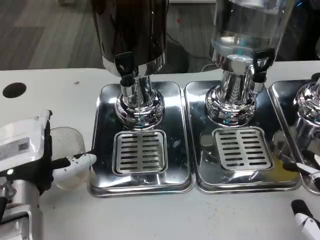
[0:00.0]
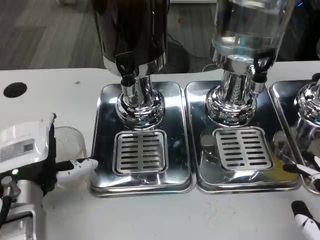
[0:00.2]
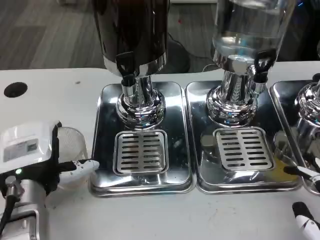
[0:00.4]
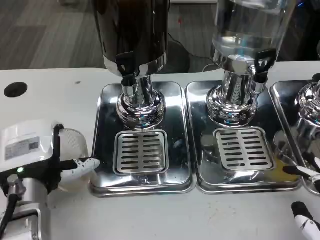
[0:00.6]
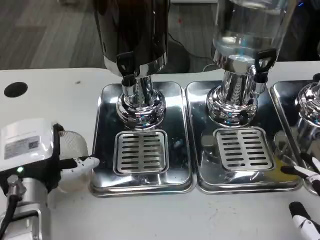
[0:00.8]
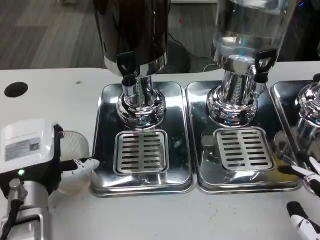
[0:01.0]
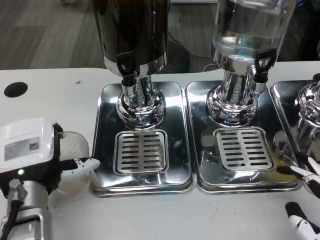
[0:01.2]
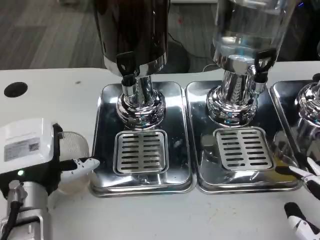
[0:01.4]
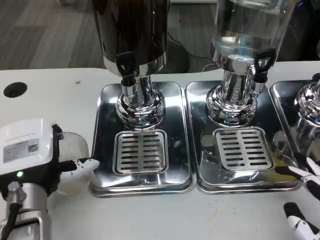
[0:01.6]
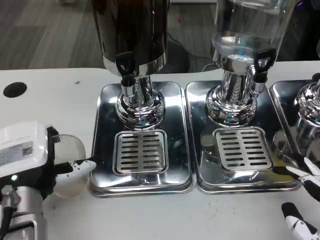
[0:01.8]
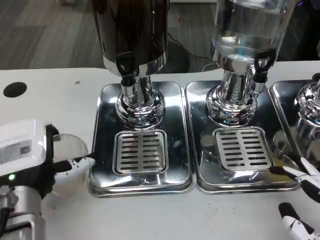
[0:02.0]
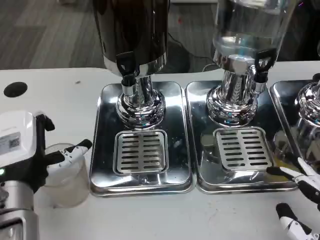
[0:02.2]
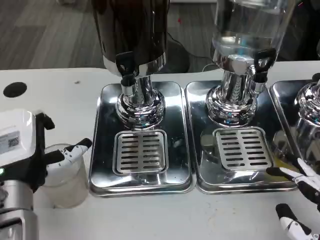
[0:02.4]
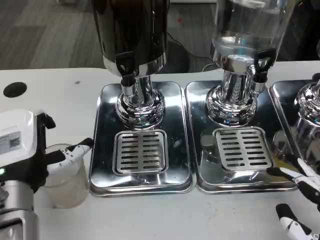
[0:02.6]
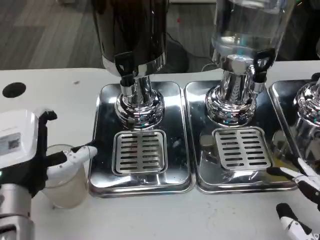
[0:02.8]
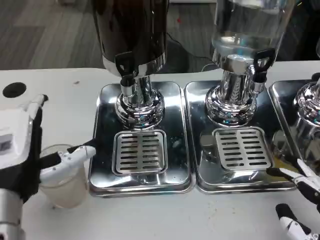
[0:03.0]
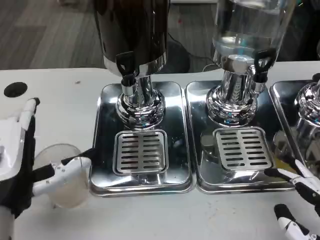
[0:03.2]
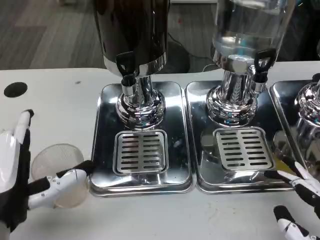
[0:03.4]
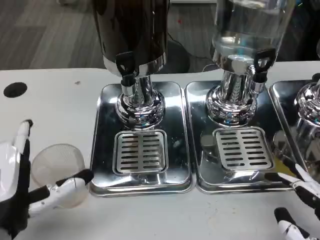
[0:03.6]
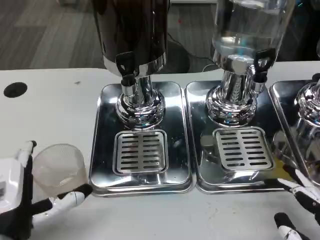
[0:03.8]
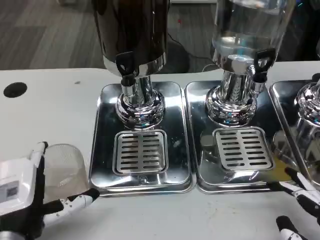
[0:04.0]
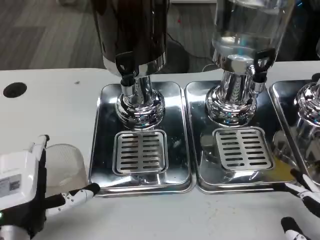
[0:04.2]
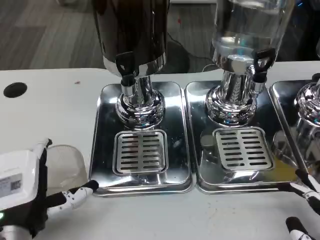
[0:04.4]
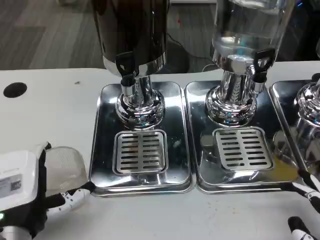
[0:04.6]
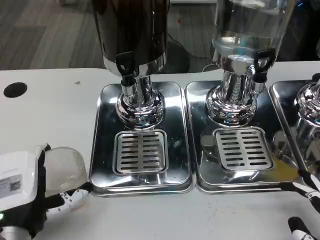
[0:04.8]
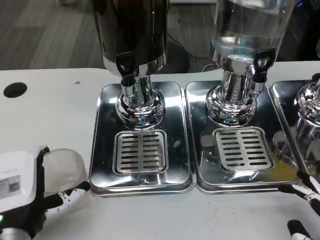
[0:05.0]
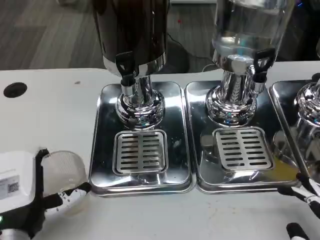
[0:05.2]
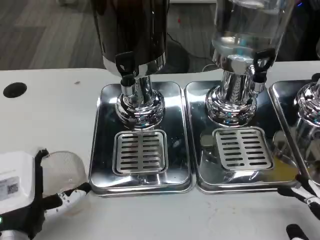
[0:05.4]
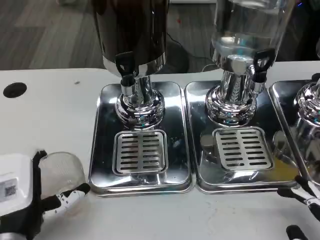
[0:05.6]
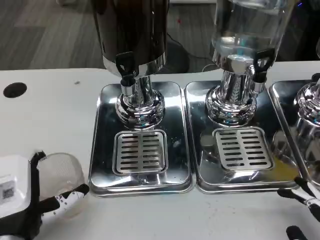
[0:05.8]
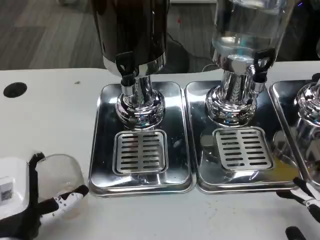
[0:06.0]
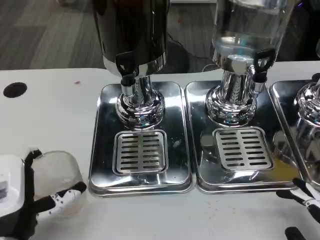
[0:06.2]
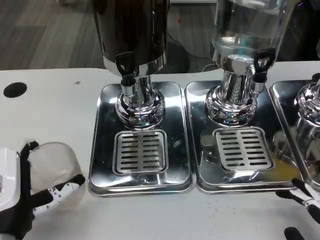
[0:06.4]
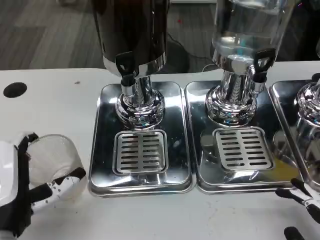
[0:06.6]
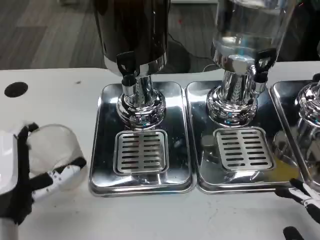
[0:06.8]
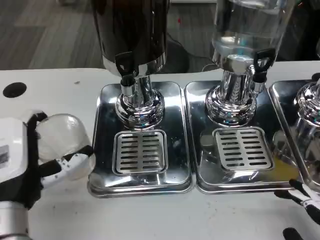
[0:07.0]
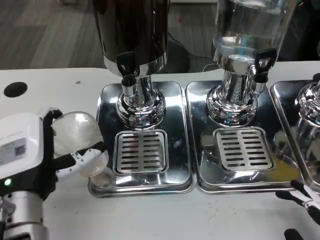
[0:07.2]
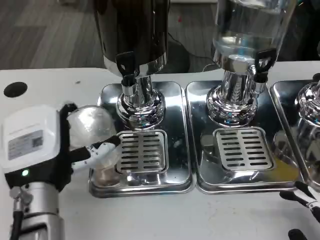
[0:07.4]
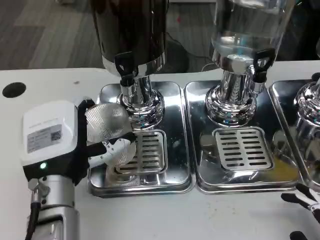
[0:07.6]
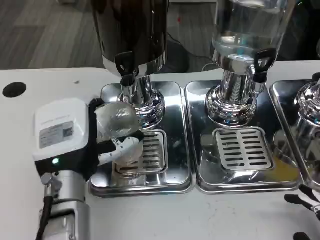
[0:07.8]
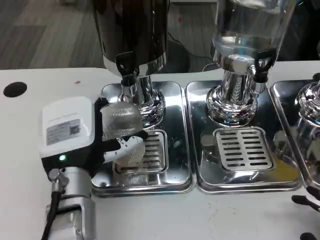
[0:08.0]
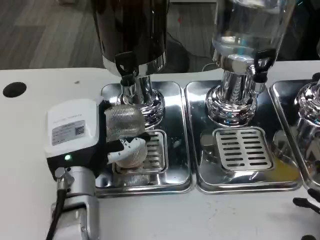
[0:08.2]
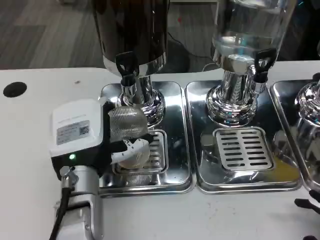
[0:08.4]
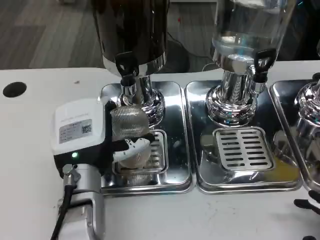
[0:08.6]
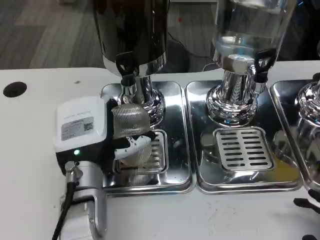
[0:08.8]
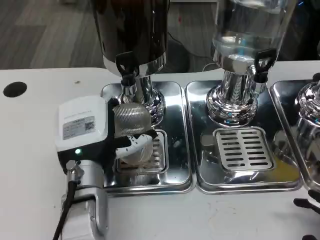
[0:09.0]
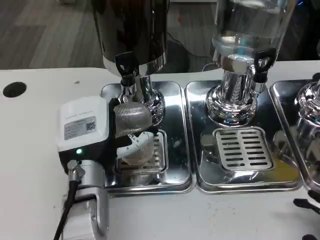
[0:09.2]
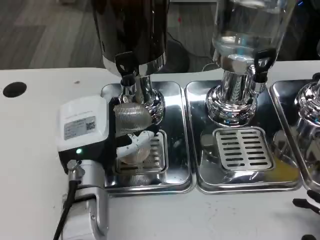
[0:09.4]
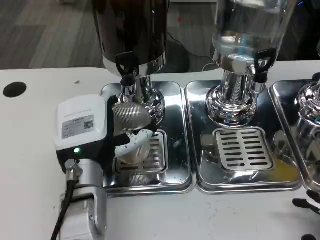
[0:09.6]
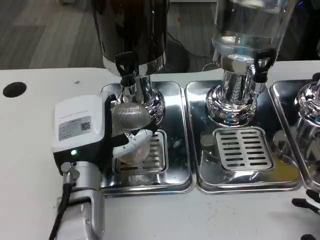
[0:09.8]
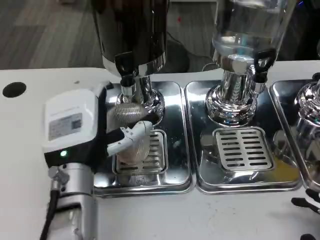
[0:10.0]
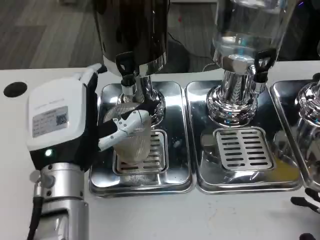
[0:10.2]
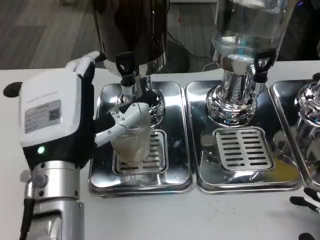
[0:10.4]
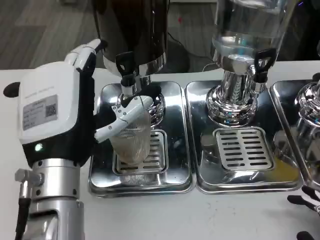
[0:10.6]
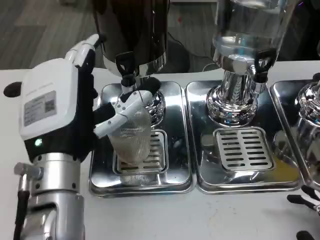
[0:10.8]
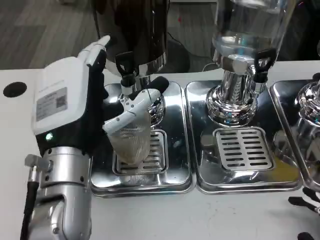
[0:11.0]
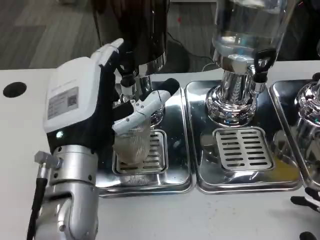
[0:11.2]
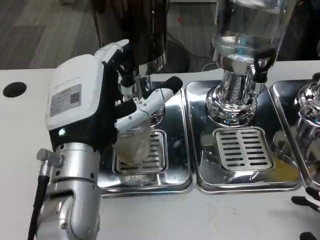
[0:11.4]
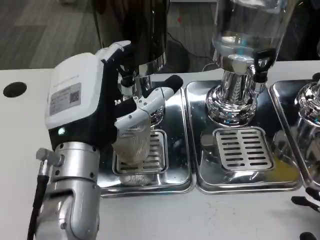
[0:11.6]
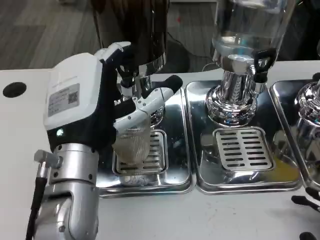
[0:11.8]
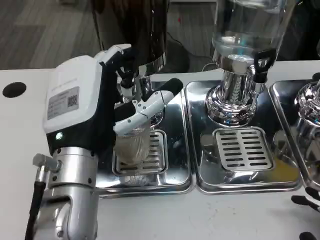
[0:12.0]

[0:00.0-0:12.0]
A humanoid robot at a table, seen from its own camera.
Task of the whole recording: Grasp the cup under the faucet to collect the drink, then remove the cup.
0:00.0 to 0:01.6: There are only small adjustments of the hands.
0:01.6 to 0:03.0: The left hand changes place by roughly 5 cm.
0:03.0 to 0:04.4: There are only small adjustments of the hands.
0:04.4 to 0:06.0: There are only small adjustments of the hands.
0:06.0 to 0:07.6: The left hand moves forward, roughly 5 cm.
0:09.0 to 0:10.4: The left hand travels upward by some 5 cm.
0:10.4 to 0:12.0: The hands make only small movements.

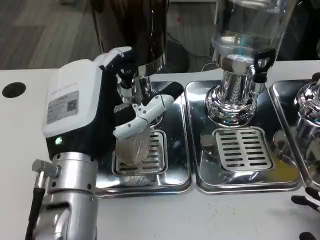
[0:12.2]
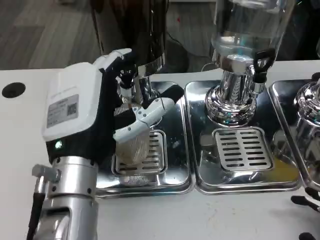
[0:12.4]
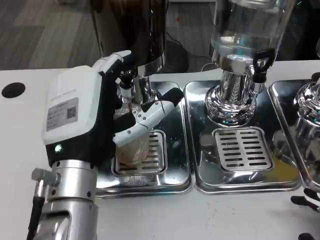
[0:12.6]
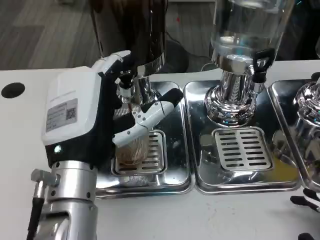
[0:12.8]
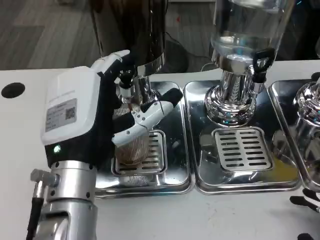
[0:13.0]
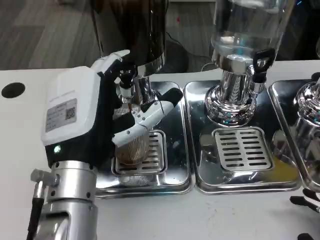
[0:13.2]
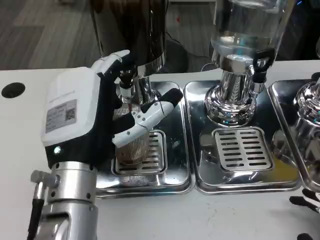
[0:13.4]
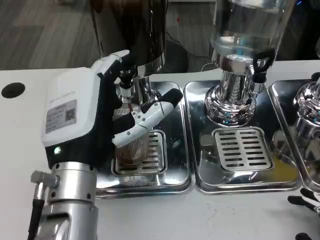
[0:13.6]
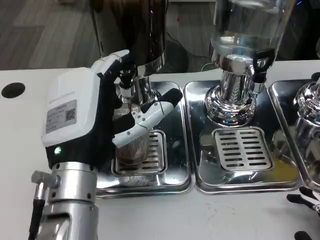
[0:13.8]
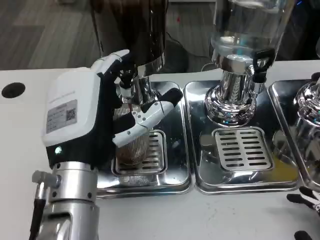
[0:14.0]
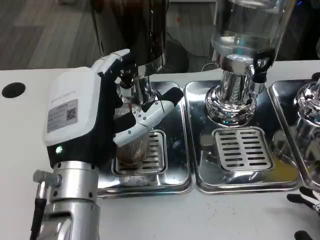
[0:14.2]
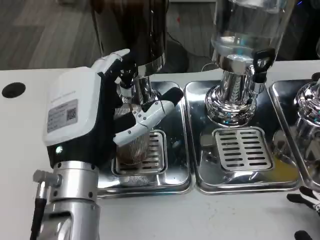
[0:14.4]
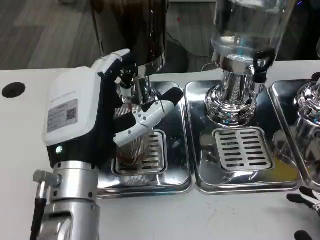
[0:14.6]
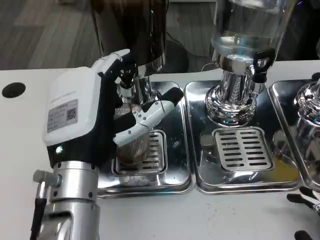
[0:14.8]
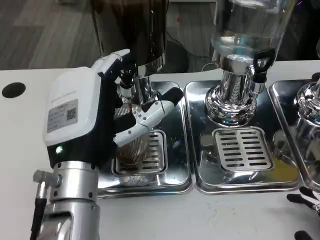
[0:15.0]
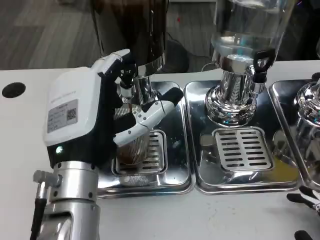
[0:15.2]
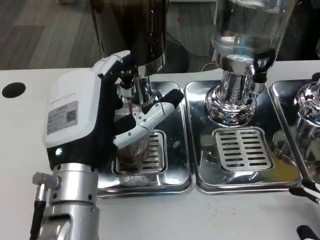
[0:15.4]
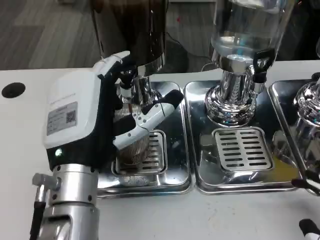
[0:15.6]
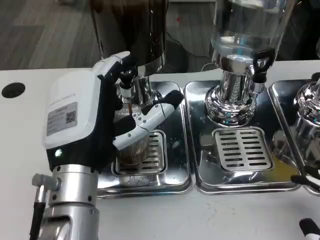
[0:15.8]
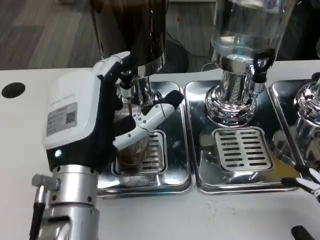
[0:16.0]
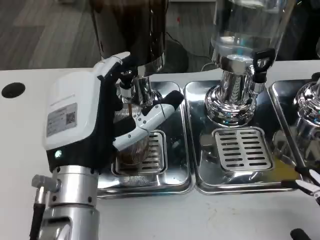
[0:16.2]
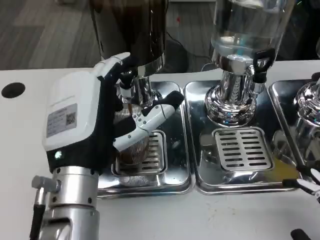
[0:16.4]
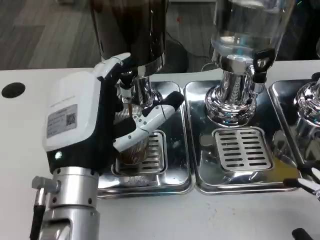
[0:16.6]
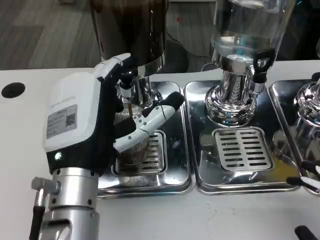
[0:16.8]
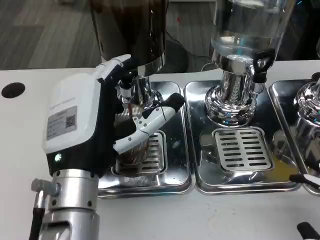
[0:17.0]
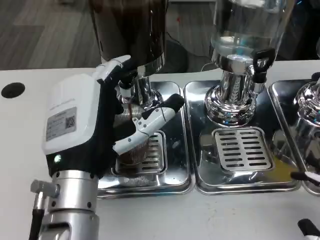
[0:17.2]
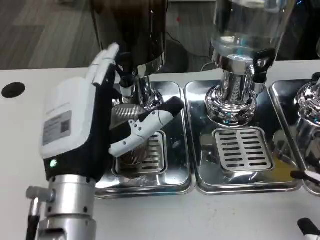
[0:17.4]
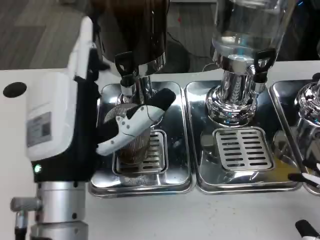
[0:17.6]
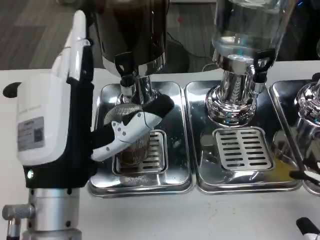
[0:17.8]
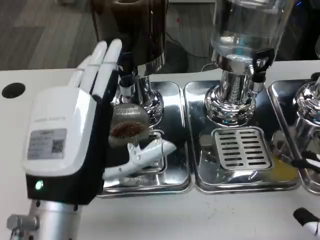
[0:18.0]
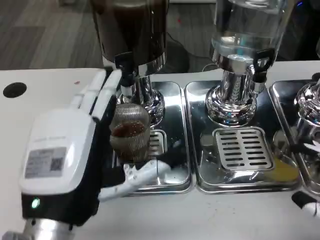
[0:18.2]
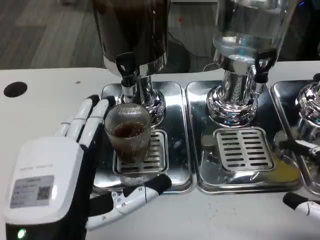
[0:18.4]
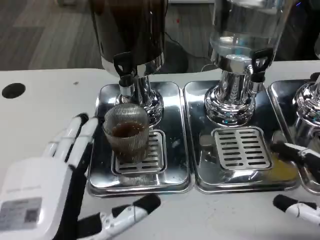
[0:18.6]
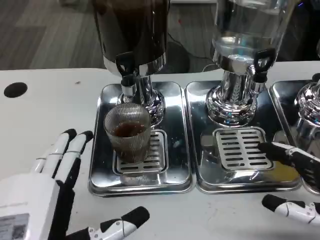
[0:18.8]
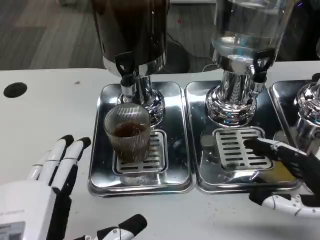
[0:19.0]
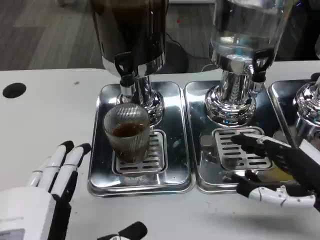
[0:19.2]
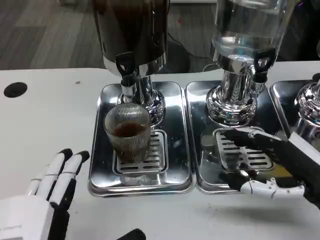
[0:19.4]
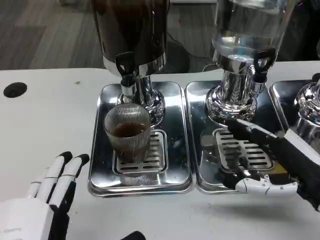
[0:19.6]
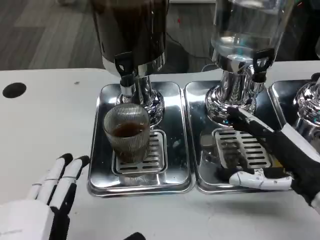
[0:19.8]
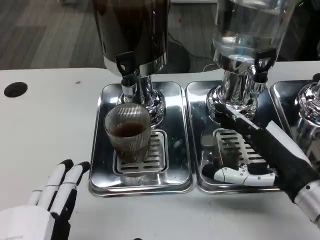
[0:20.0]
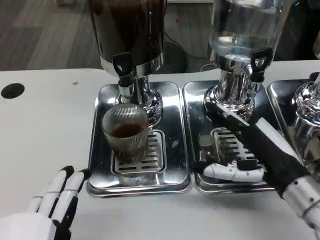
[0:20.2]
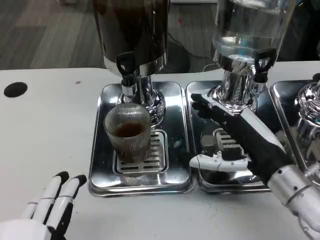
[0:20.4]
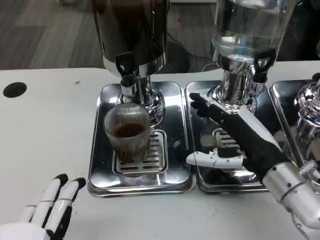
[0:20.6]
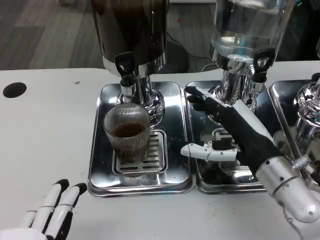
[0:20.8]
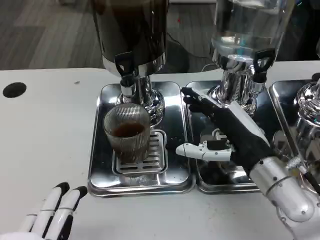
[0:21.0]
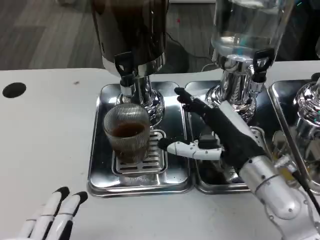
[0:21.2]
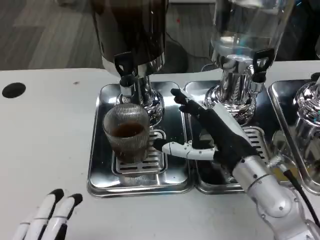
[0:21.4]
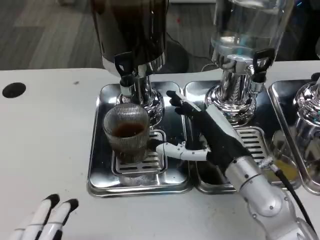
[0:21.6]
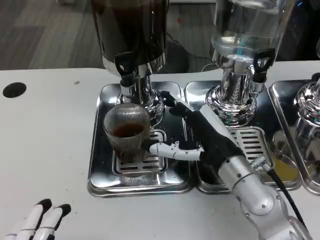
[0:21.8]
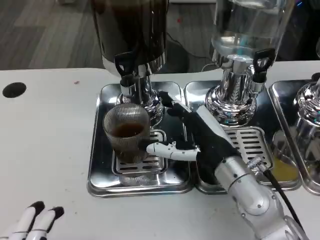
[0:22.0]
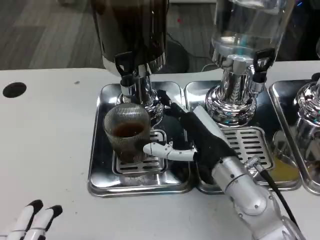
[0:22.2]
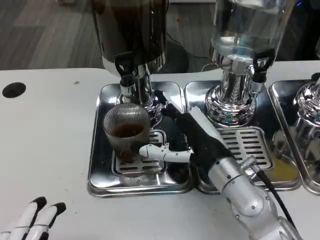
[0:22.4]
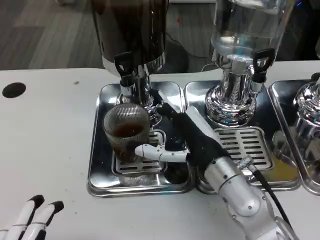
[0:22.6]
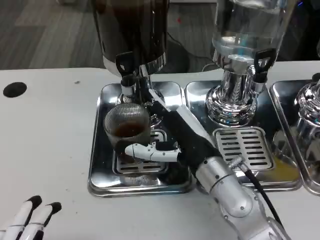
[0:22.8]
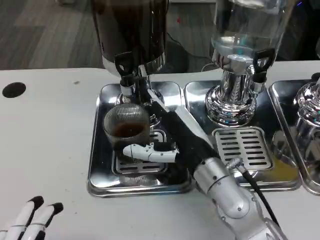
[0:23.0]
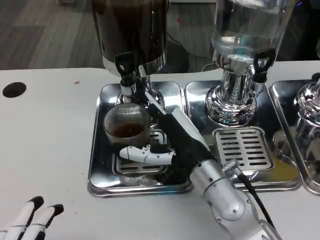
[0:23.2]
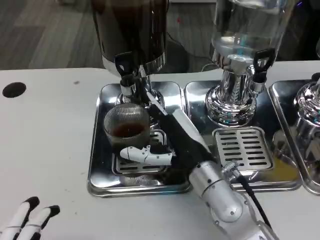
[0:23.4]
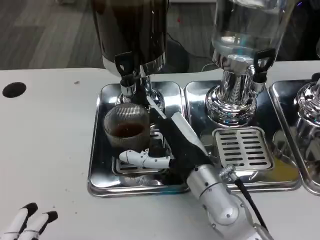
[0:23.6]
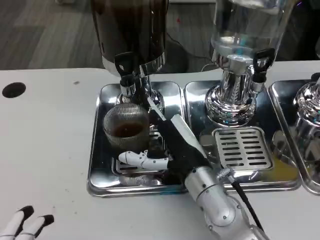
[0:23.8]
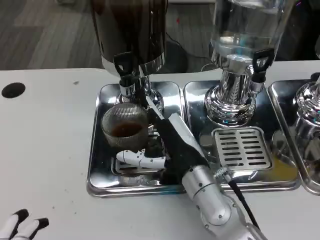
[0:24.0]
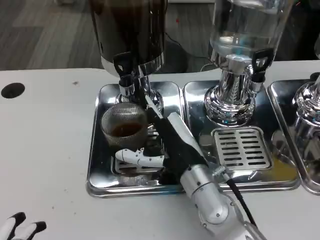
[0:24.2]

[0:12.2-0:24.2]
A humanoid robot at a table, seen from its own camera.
Task of the whole recording: Grasp the cup under the faucet to collect the drink, then remove the cup.
0:12.2 to 0:15.2: Both hands stay about where they are.
0:16.6 to 0:18.2: The right hand goes approximately 5 cm forward. The left hand is displaced backward by some 5 cm.
0:18.2 to 0:19.8: The left hand goes some 10 cm backward. The right hand heads forward and to the left, covering about 10 cm.
0:19.8 to 0:21.2: The right hand goes approximately 10 cm to the left.
0:21.2 to 0:22.6: The right hand goes approximately 5 cm to the left.
